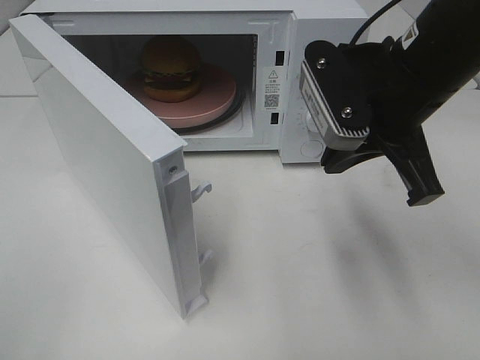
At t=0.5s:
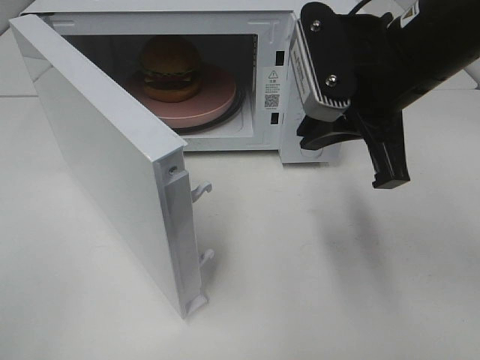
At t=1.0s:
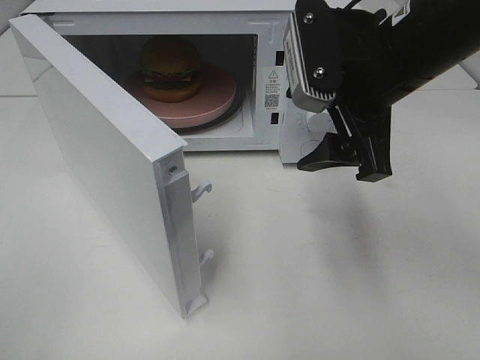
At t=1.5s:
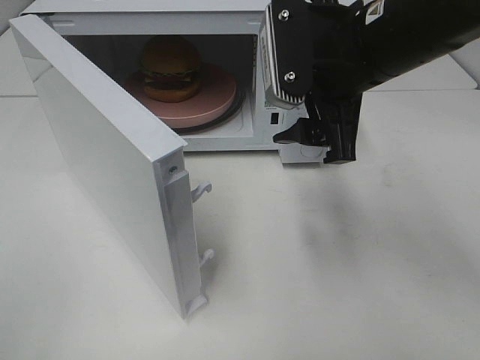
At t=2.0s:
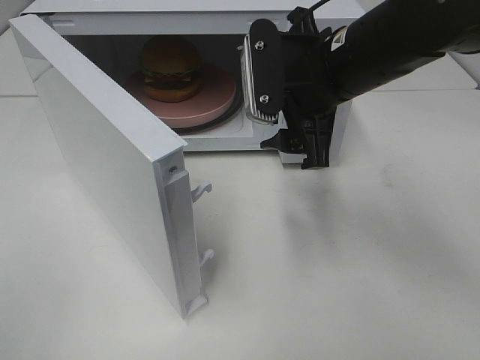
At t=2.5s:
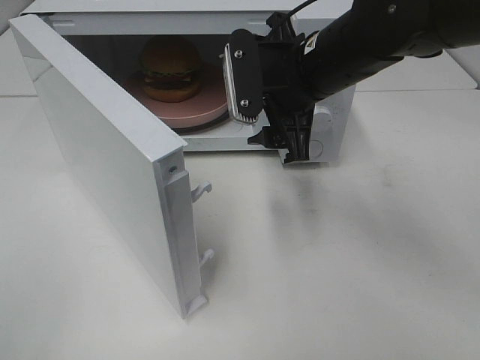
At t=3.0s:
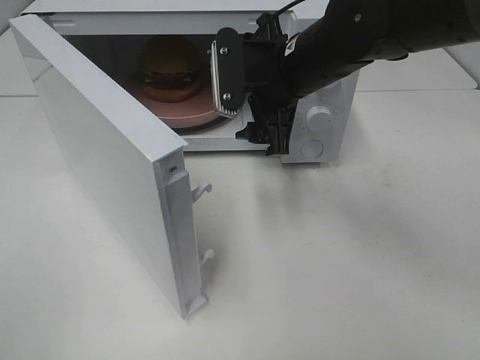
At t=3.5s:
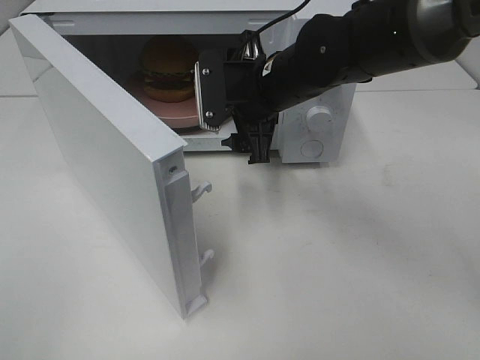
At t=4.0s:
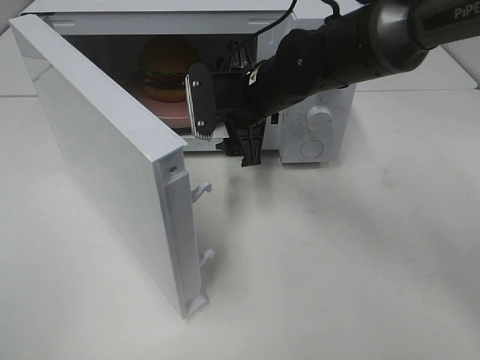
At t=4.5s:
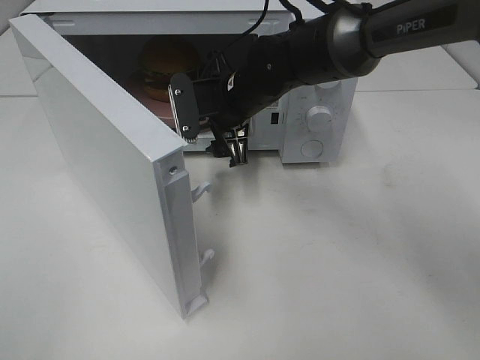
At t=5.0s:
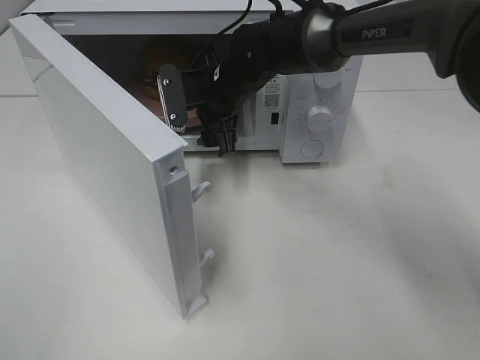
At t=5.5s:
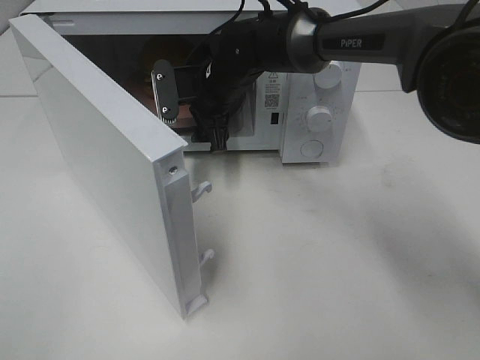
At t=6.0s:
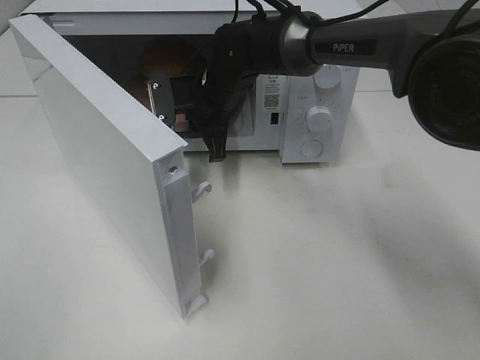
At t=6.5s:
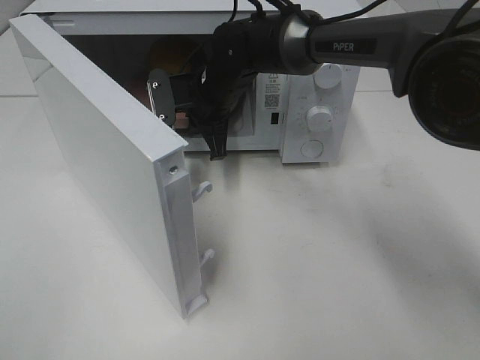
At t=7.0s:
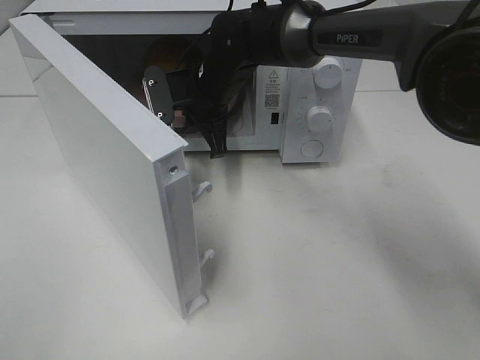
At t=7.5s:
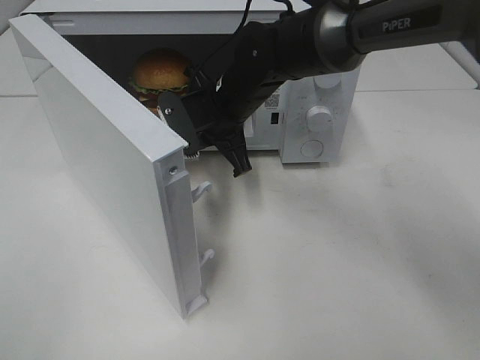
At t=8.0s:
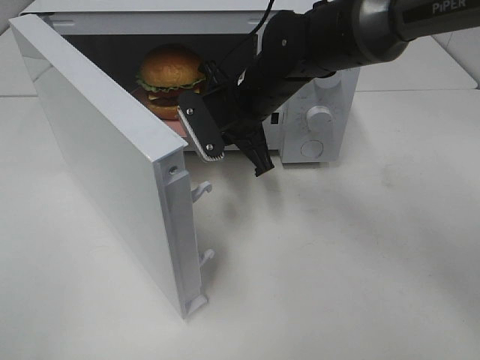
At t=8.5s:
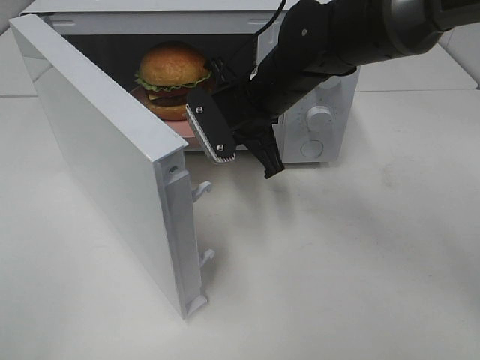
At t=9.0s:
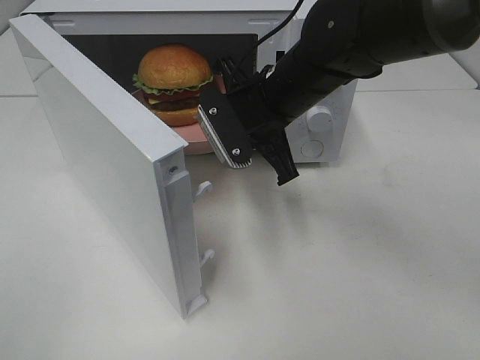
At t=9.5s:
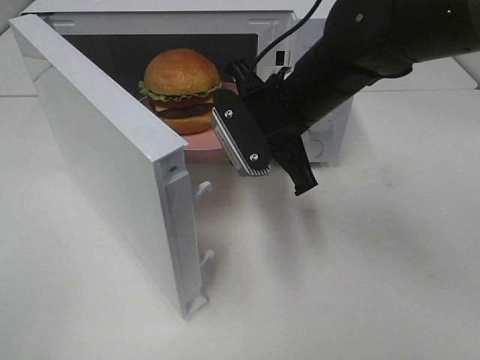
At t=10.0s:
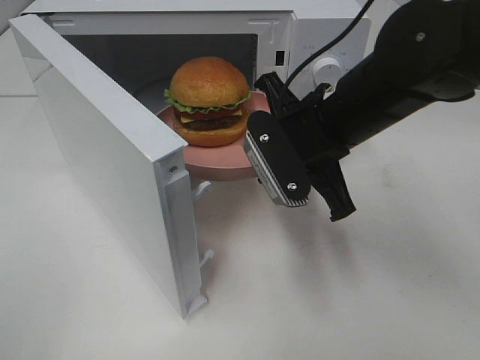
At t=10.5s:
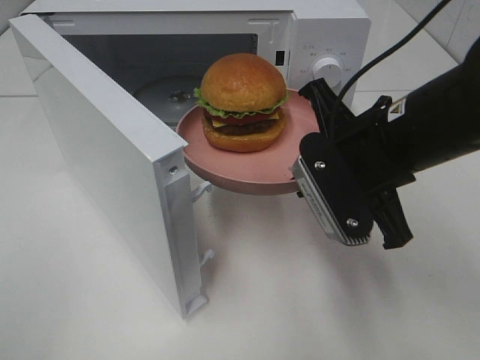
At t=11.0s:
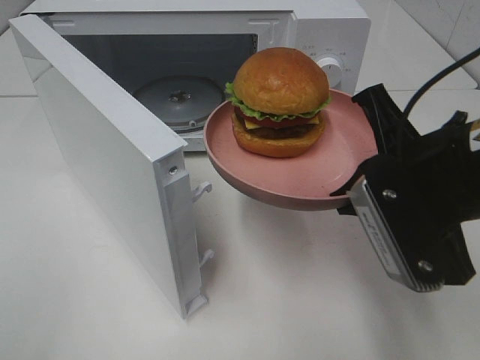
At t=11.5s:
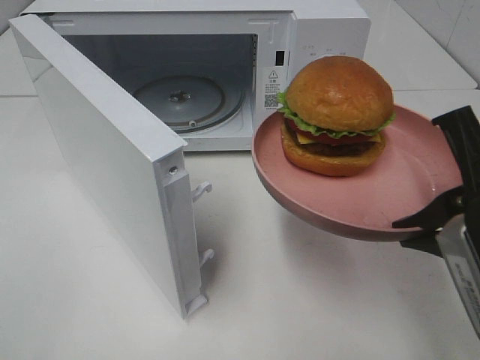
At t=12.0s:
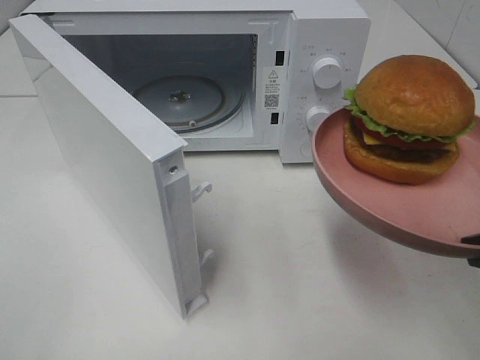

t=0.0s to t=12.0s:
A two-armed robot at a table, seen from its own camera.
Task of the whole recording: Heat the burger.
Step, t=0.0s to t=6.0s: Right hand: grab the plate with the hamburger.
t=0.0s to t=2.0s: The right gripper changes place by some 5 cm, and opens.
t=2.0s to t=4.0s: The right gripper heads forward, downward and to the left, covering some 15 cm.
t=4.0s to t=6.0s: The right gripper travels forward and to the left by approximately 10 cm, and closes.
t=6.0s to t=8.0s: The right gripper travels backward by approximately 5 cm.
t=8.0s to t=10.0s: The right gripper moves backward and to the right, roughly 10 cm.
t=10.0s to t=12.0s: The right gripper heads backward and to the right, covering some 25 cm.

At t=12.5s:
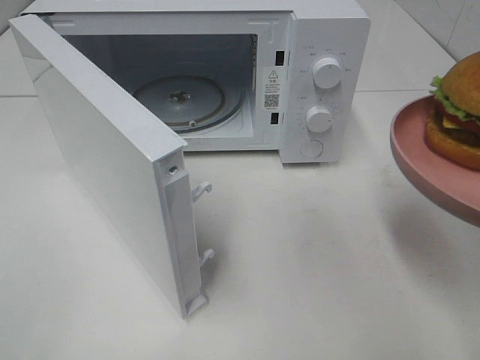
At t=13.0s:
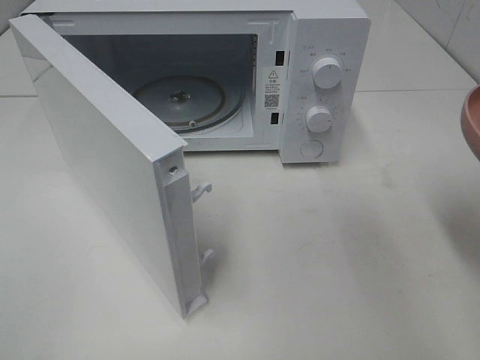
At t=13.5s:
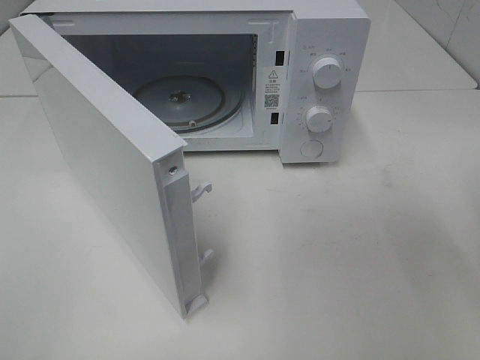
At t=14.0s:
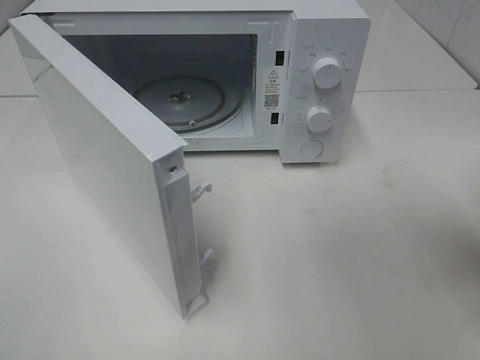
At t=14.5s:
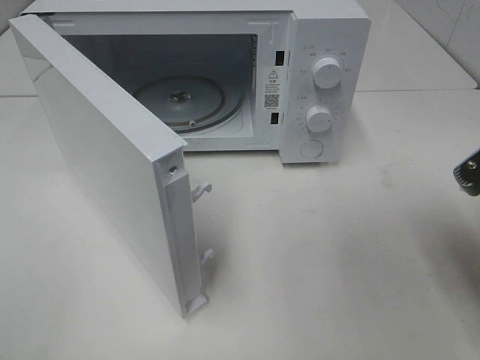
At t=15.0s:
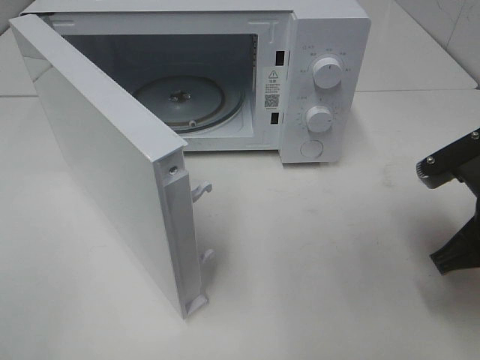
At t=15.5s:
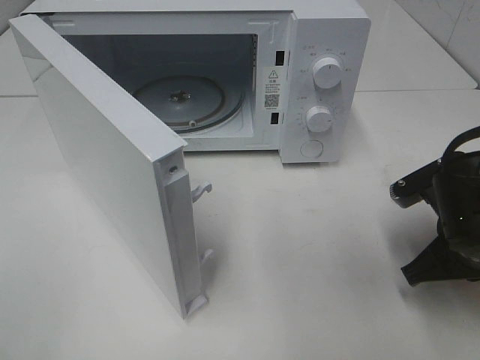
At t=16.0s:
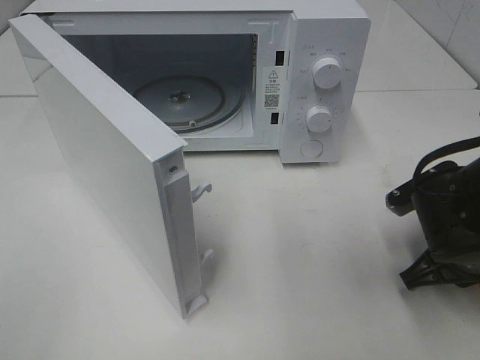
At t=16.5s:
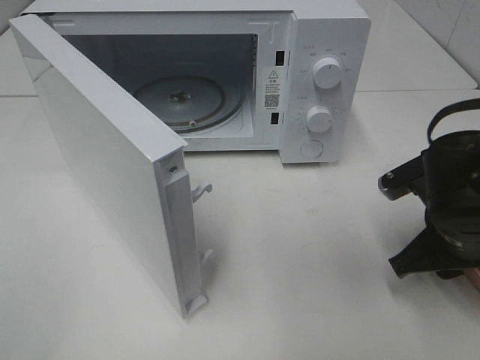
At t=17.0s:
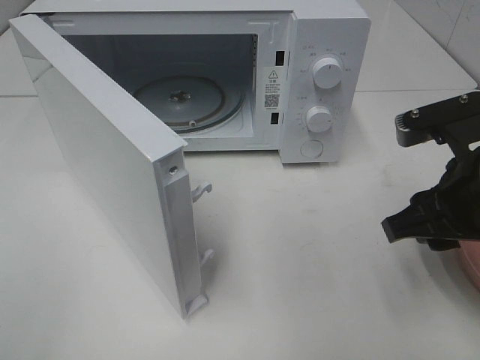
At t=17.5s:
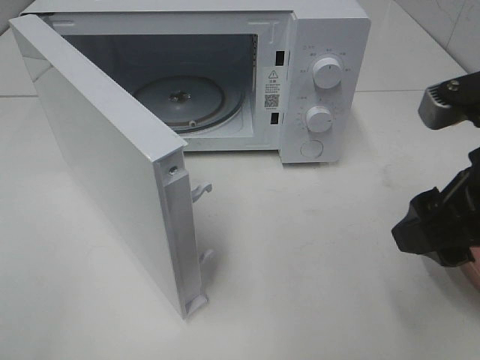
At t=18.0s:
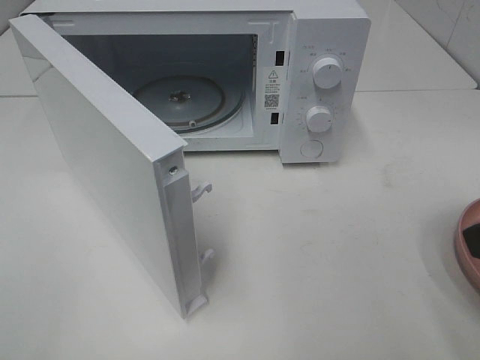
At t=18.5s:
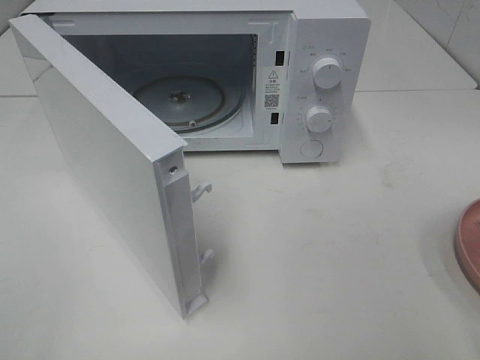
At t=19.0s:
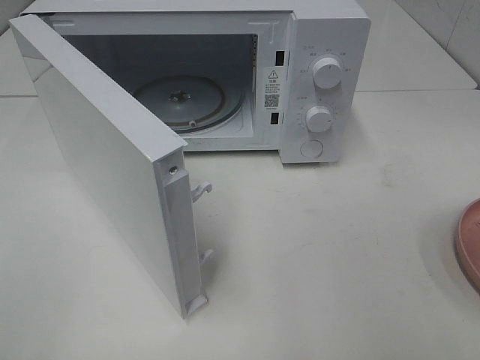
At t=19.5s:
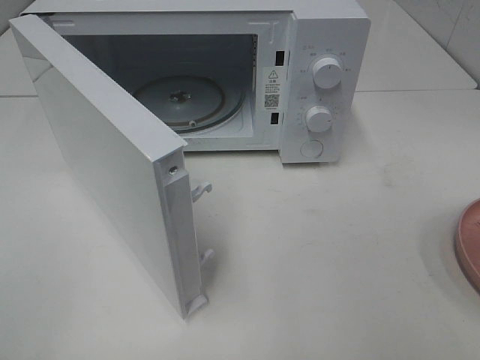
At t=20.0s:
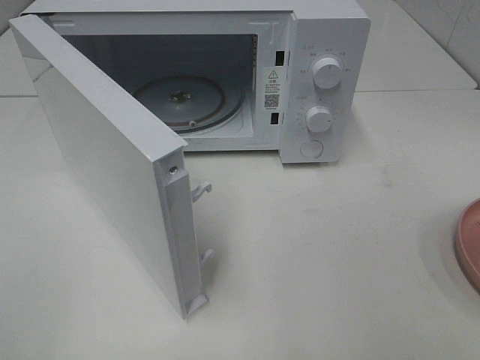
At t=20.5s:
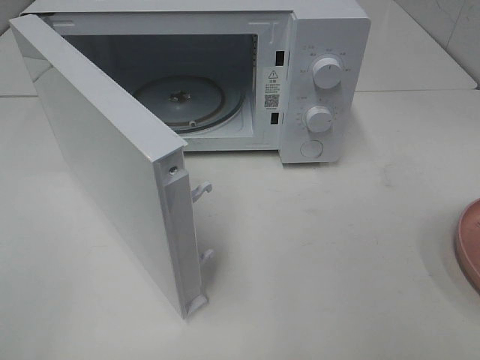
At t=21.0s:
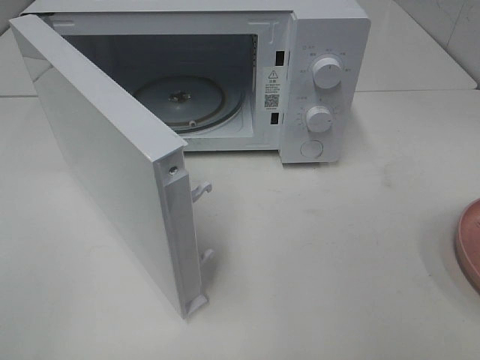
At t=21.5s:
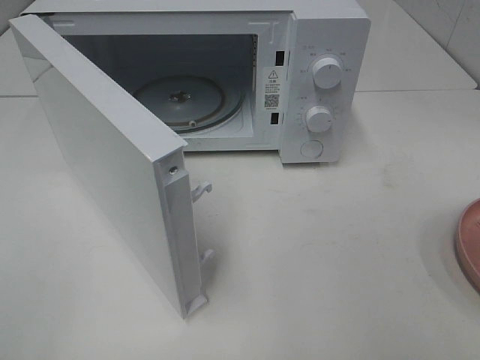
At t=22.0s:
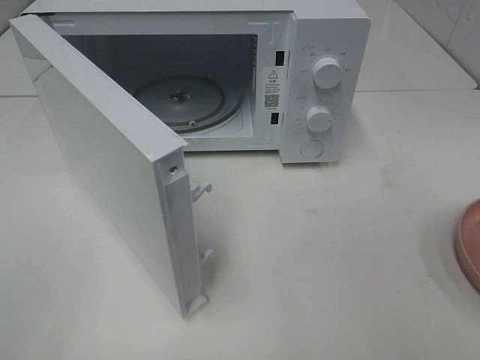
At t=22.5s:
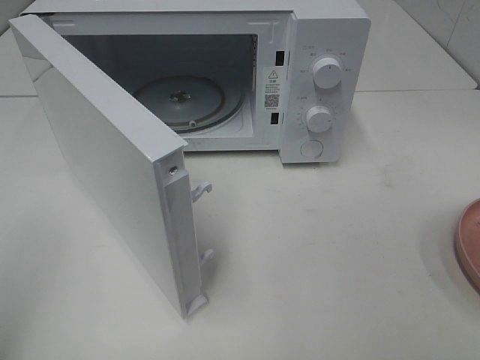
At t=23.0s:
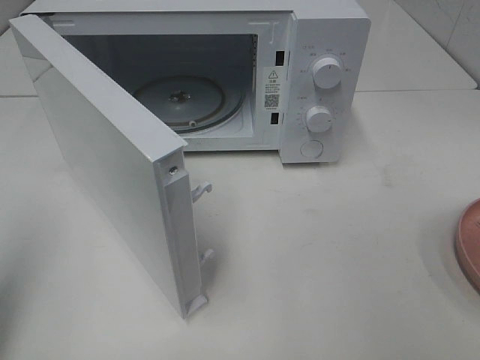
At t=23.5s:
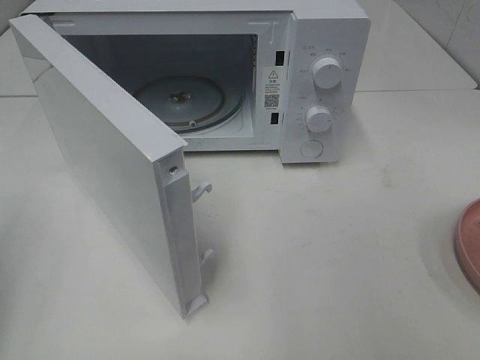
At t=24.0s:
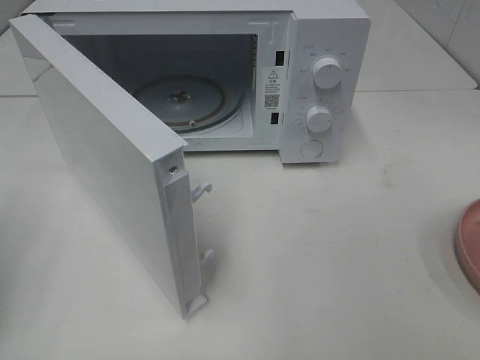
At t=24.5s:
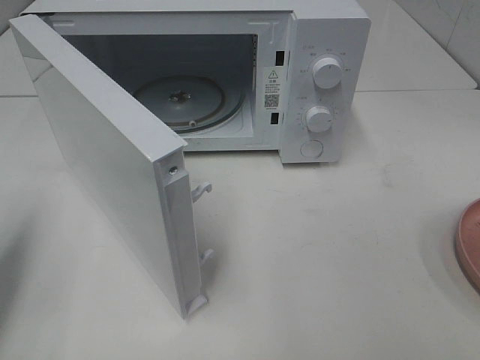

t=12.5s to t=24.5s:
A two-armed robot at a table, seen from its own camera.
Task of the whole recording: Heat the burger.
Step, t=12.5s to t=16.0s: Right hand: place the plate on the table.
t=12.5s to t=14.5s: The right gripper goes roughly 10 cm forward and downward.
t=14.5s to t=16.5s: The right gripper is displaced downward and forward by approximately 10 cm, and opens.
t=16.5s to t=18.5s: The right gripper moves upward and backward, approximately 20 cm.
t=22.5s to t=24.5s: The left gripper moves forward and downward, approximately 15 cm.

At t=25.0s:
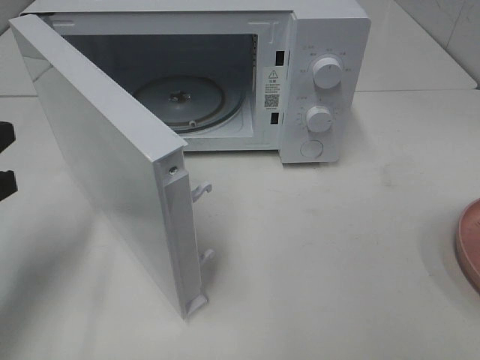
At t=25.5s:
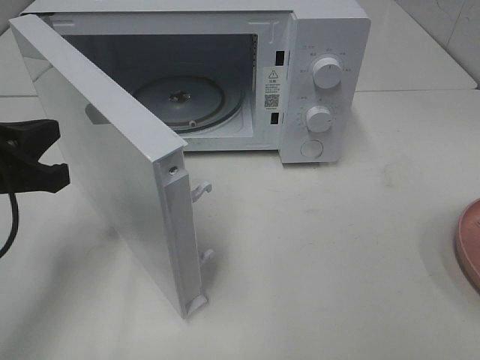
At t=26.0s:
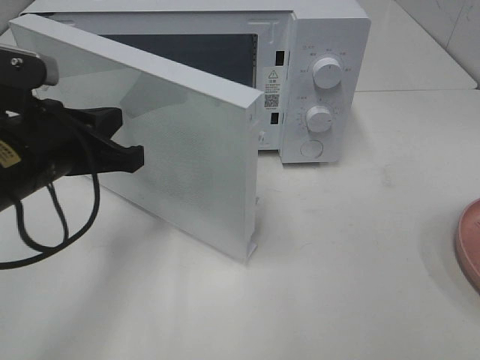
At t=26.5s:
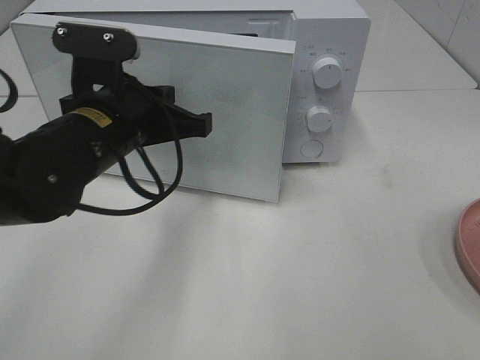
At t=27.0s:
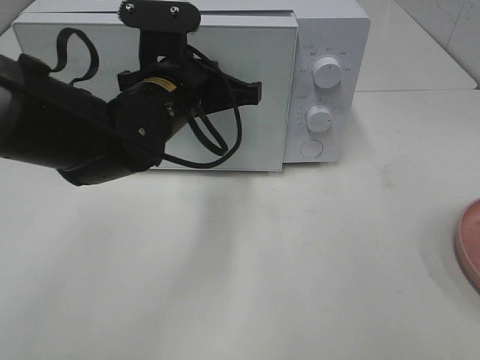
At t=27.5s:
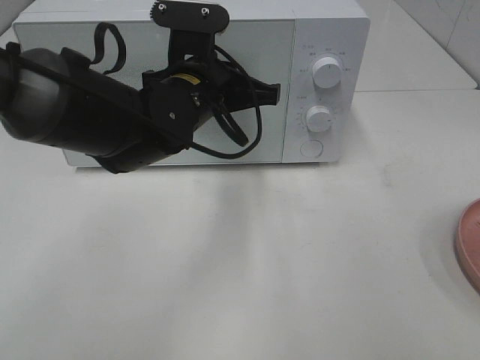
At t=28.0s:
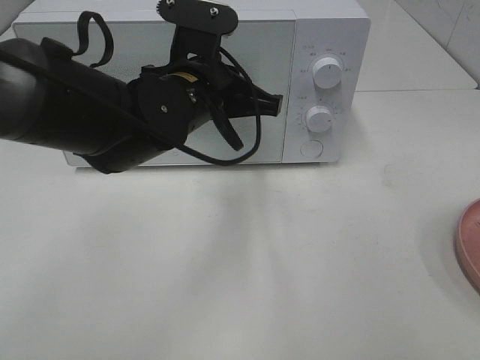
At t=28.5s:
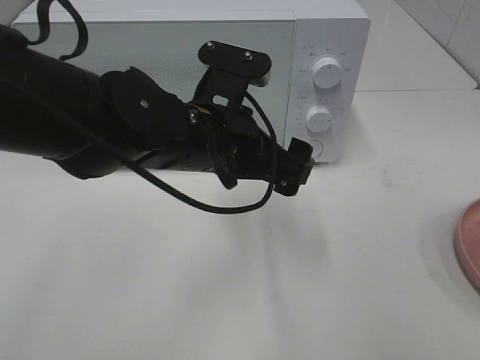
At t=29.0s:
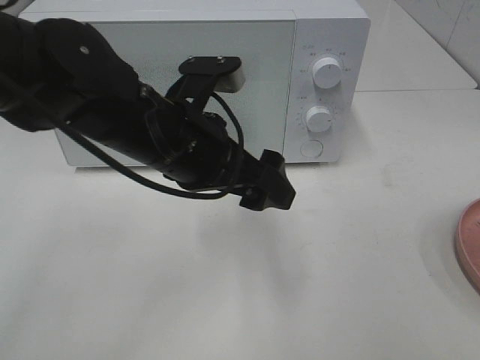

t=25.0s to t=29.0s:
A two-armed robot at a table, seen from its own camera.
Task of the whole recording: Heat the burger.
Step, t=25.0s to t=28.0s: Left hand: close the microwave door.
t=25.0s to t=27.0s: The left gripper moves to the right and forward, roughly 25 cm.
t=27.0s to t=29.0s: The left gripper is displaced backward by roughly 5 cm, and opens its fingers.
